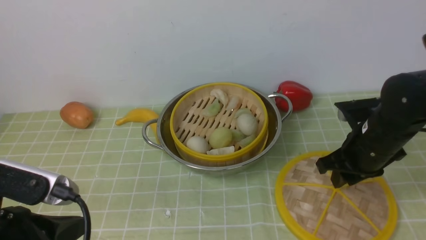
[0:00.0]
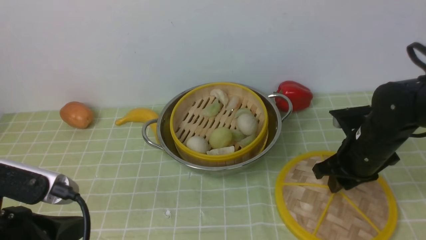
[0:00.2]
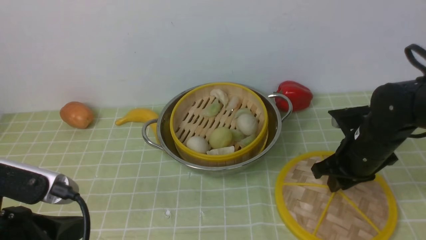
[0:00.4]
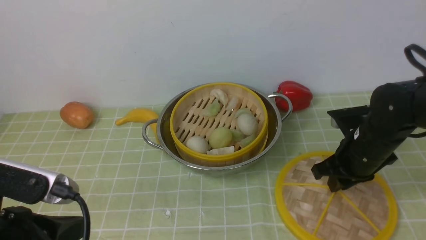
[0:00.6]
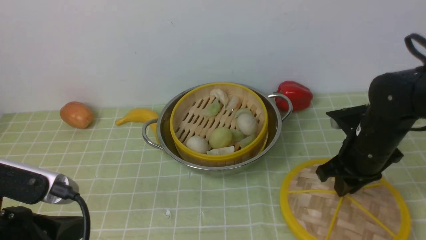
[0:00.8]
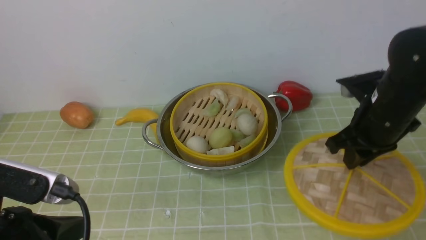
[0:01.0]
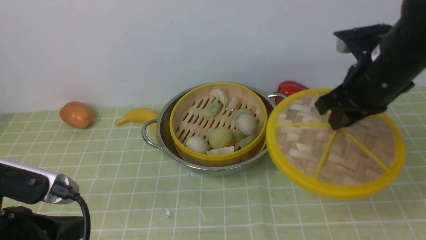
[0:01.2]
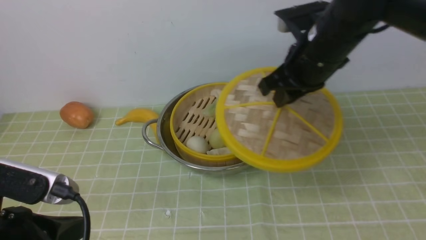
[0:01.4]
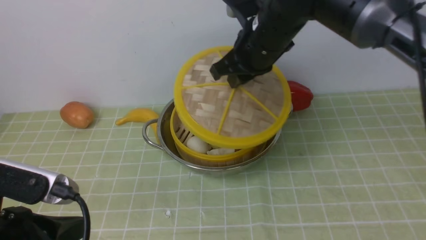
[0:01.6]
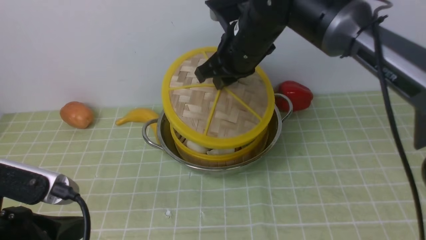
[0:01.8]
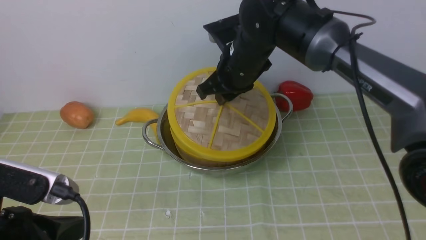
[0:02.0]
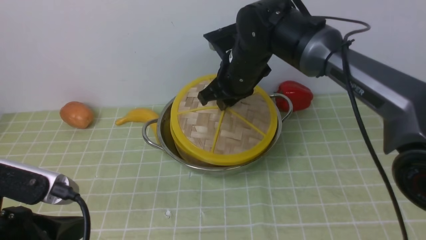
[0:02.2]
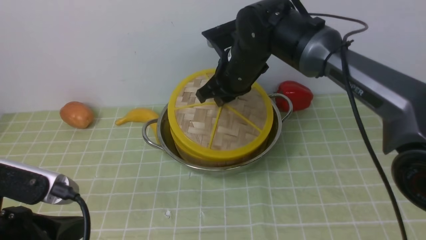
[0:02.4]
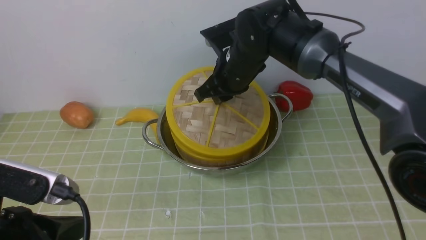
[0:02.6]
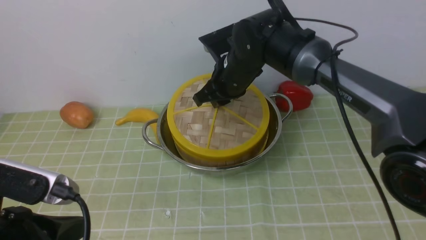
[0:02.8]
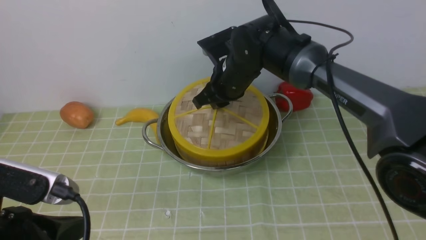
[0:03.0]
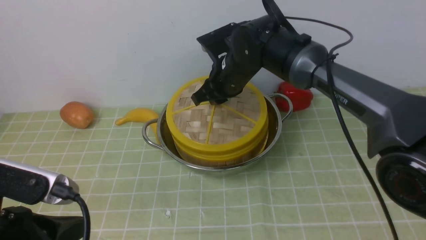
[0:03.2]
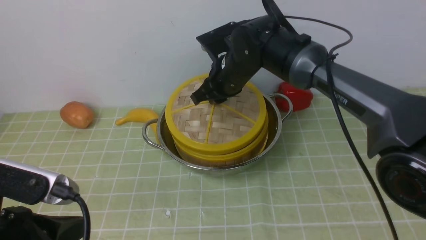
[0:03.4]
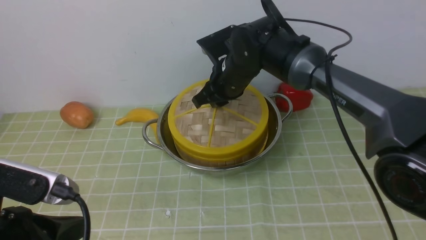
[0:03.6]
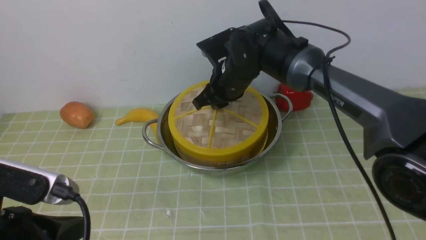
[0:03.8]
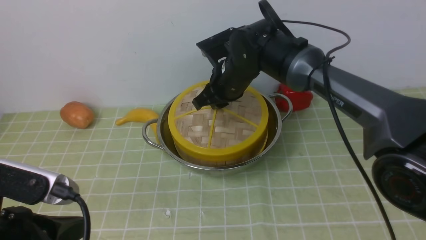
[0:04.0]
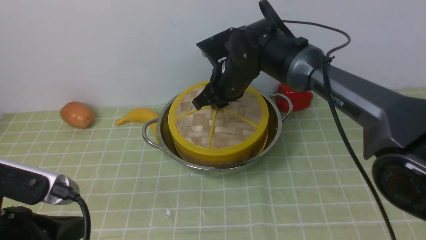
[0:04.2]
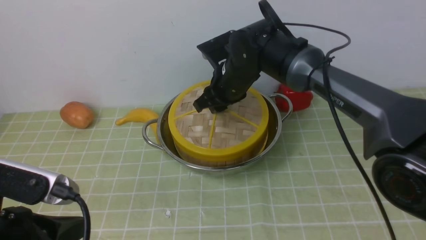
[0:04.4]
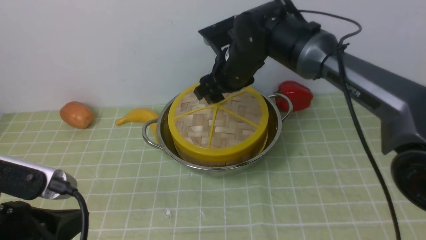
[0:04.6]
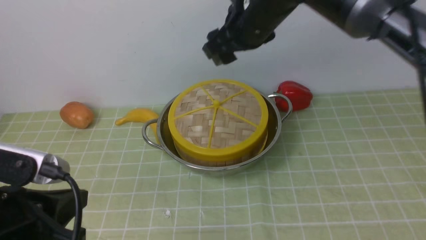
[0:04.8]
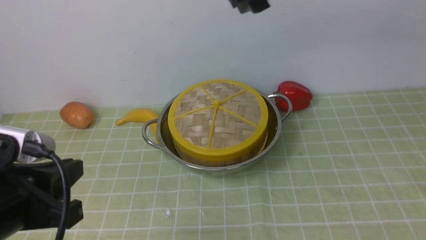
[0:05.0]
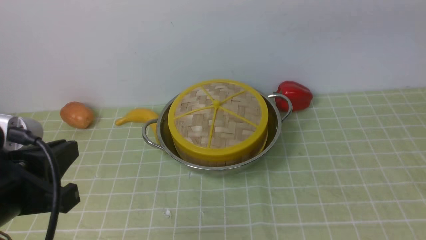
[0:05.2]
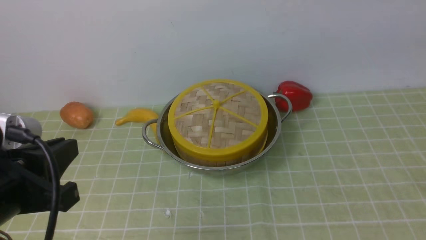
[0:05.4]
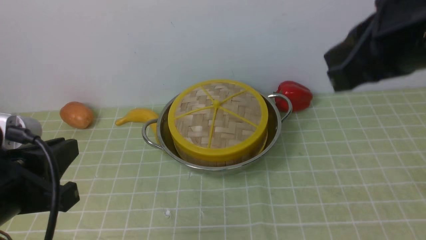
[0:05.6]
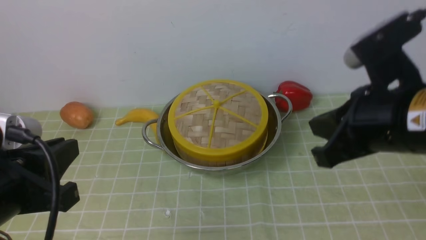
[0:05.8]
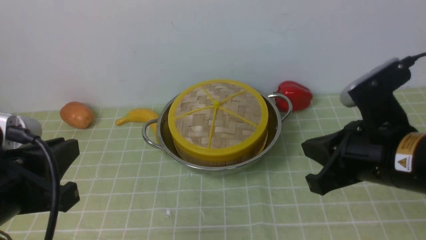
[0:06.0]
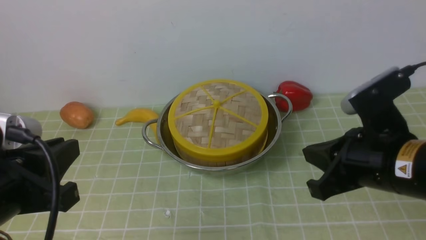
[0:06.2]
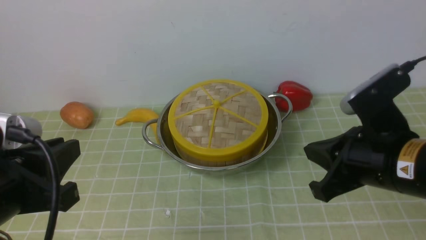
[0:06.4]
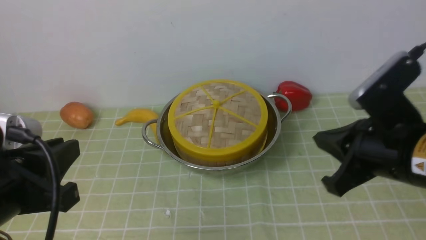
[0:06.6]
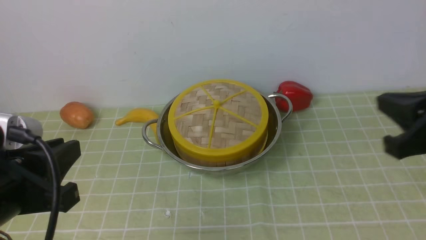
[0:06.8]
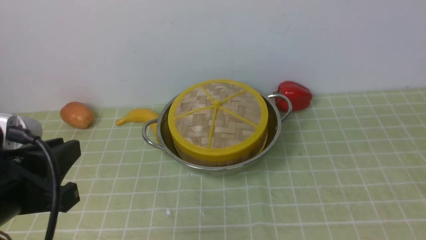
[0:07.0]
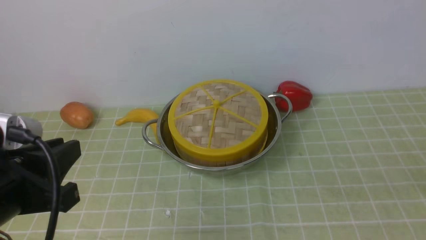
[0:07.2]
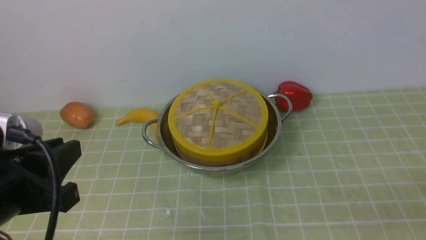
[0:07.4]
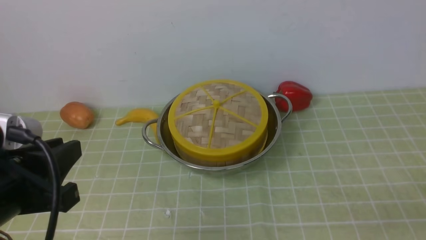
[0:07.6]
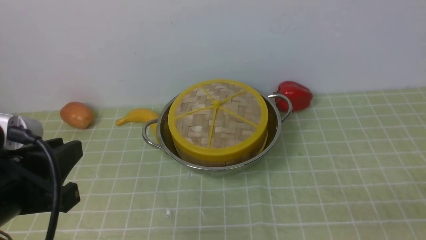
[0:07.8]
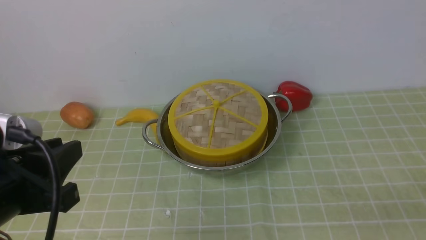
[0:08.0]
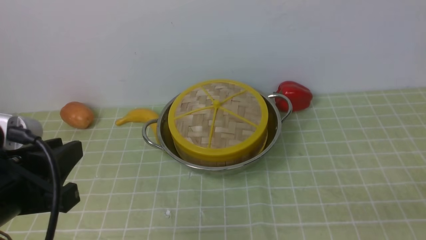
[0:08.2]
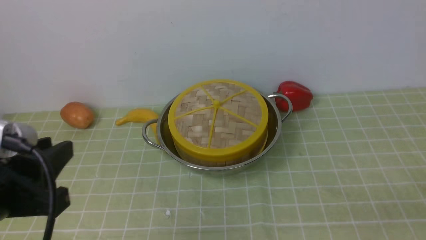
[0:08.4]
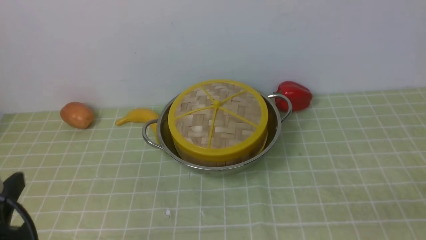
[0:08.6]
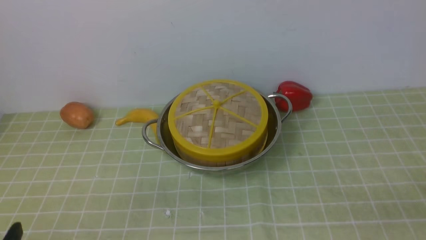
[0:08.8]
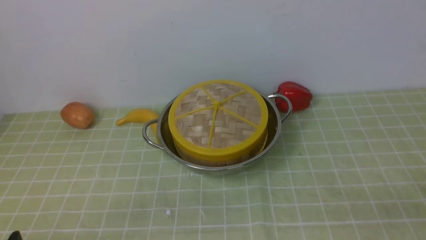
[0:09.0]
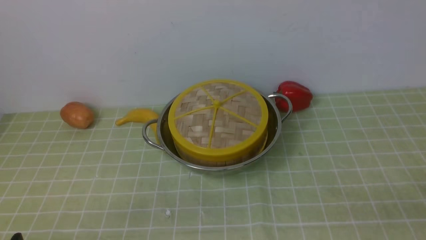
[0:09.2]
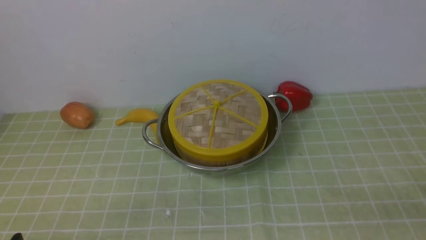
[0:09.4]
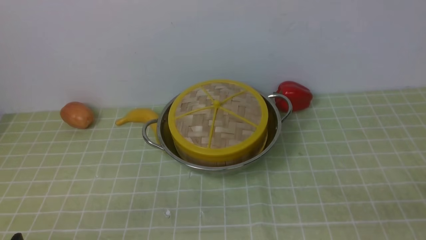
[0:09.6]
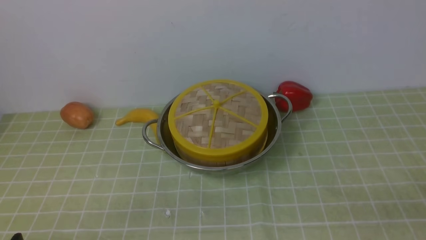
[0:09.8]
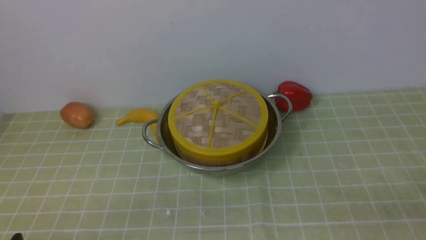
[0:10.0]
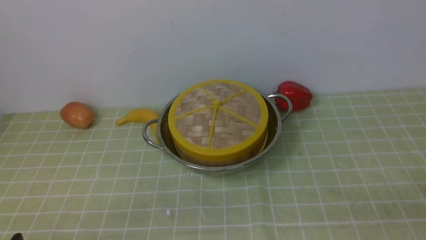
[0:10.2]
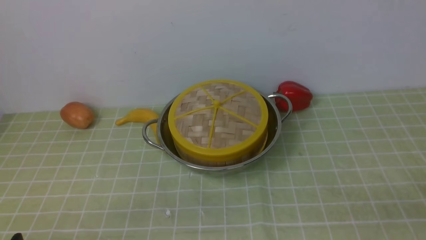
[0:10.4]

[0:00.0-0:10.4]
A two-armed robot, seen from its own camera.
Task of the whole recording: place the steamer in the pot on the green tablecloth, and put the lid on the steamer.
Step, 0:01.6 to 0:05.0: use the right arm to place the steamer lid on the steamer.
0:00.0 to 0:01.4: The right gripper is displaced upward, to the left and forward by roughly 15 cm.
0:01.4 to 0:03.0: The right gripper shifts approximately 15 cm to the left, downward and forward.
0:03.0 to 0:04.4: The right gripper opens its fingers.
0:04.4 to 0:06.0: The right gripper shifts approximately 25 cm backward and to the right, goes upward and returns, roughly 25 cm each way, and closes its fingers; the left gripper opens up.
0:06.0 to 0:07.4: The right gripper goes some 20 cm to the right, backward and downward.
0:07.4 to 0:09.0: The left gripper moves downward and backward, approximately 15 cm.
0:09.0 to 0:10.4: Neither gripper changes place.
